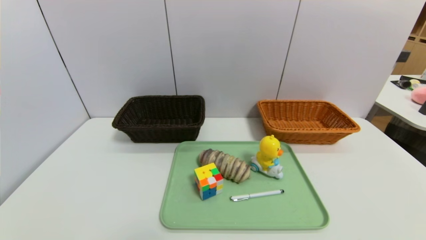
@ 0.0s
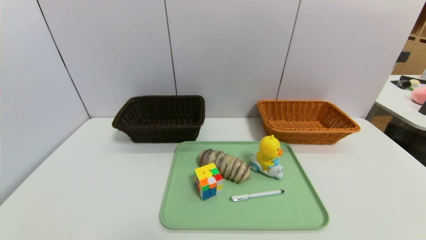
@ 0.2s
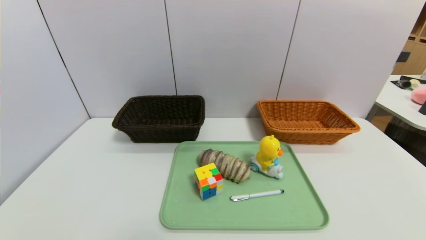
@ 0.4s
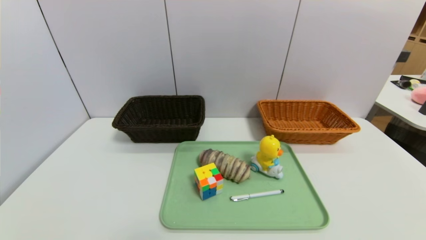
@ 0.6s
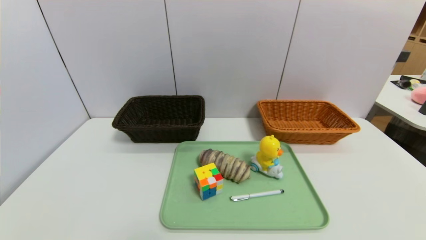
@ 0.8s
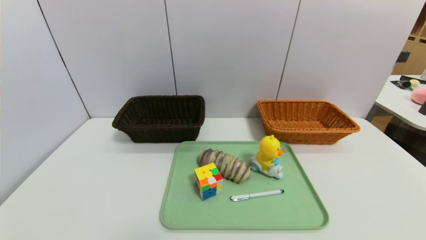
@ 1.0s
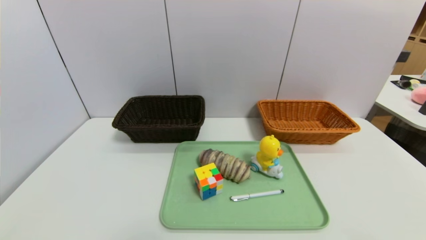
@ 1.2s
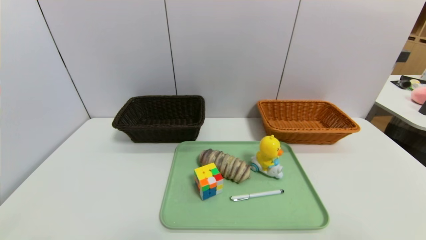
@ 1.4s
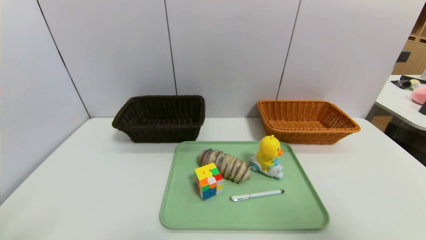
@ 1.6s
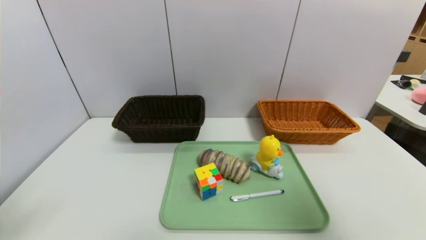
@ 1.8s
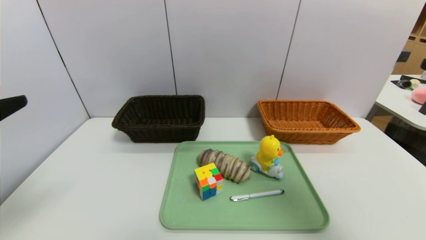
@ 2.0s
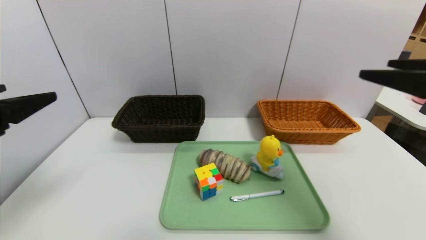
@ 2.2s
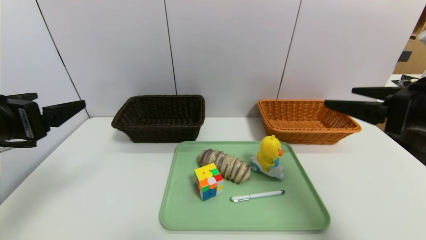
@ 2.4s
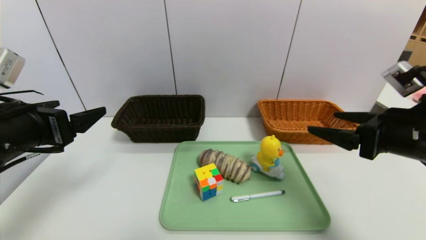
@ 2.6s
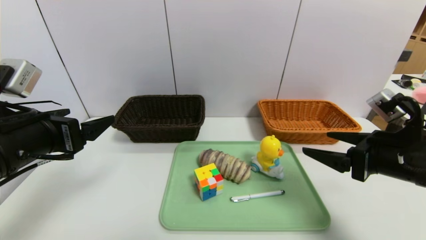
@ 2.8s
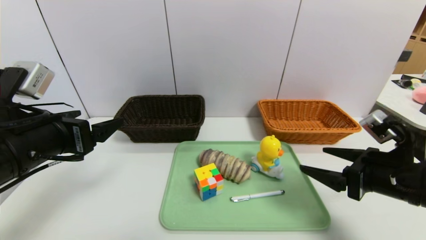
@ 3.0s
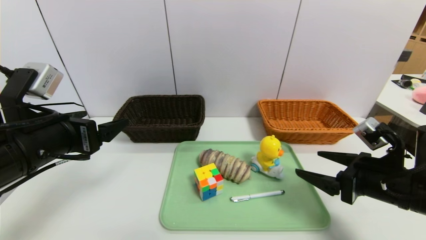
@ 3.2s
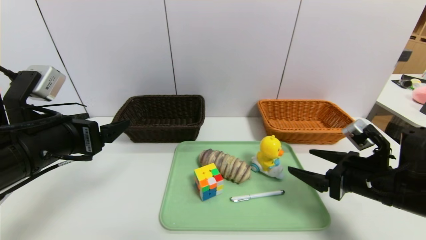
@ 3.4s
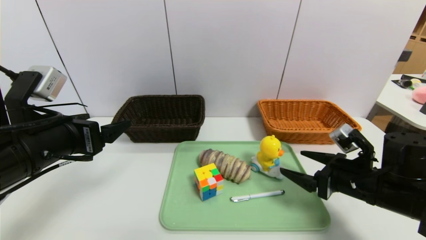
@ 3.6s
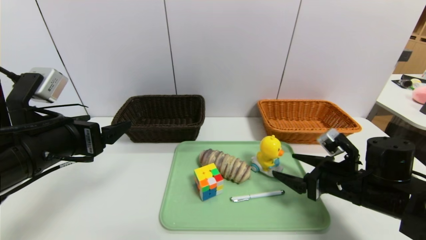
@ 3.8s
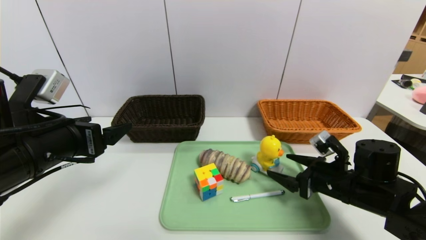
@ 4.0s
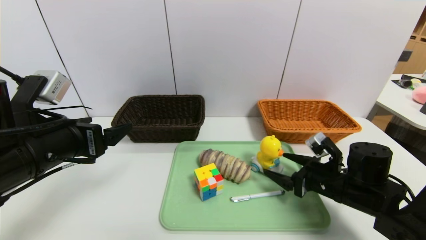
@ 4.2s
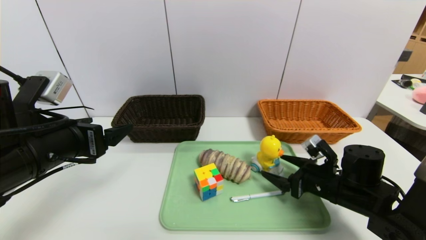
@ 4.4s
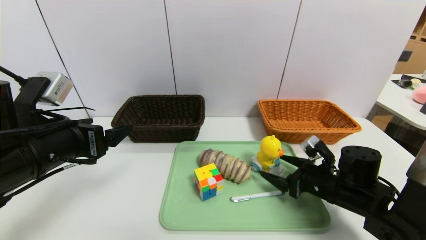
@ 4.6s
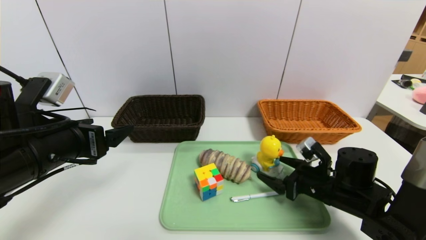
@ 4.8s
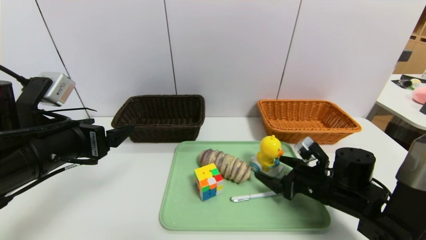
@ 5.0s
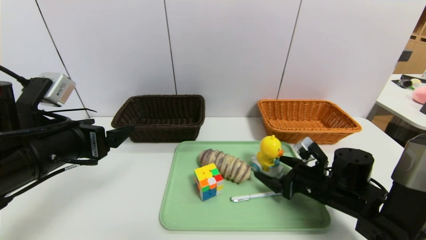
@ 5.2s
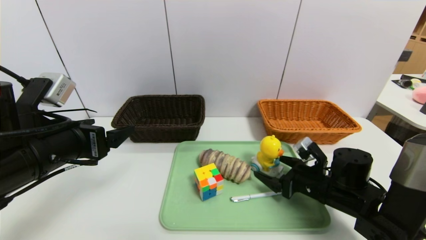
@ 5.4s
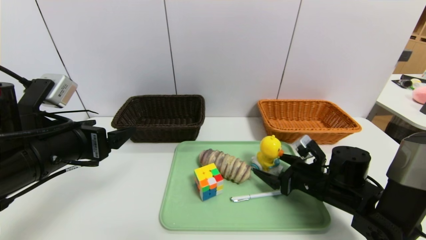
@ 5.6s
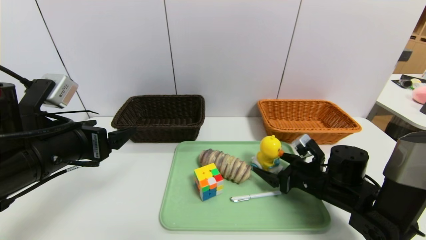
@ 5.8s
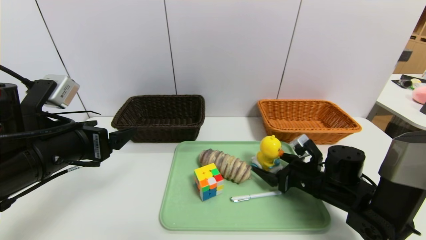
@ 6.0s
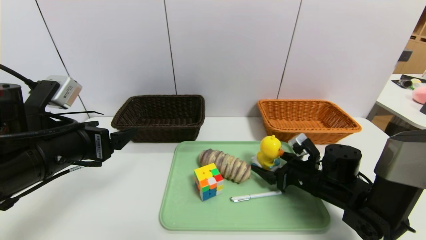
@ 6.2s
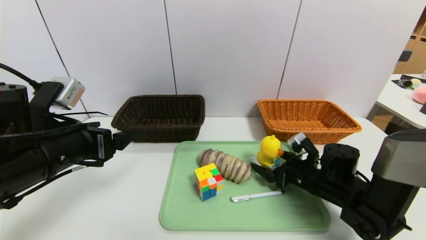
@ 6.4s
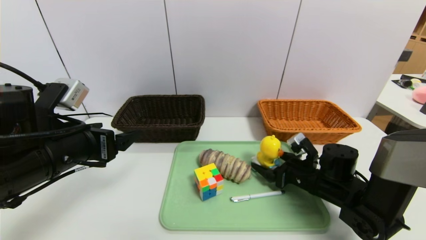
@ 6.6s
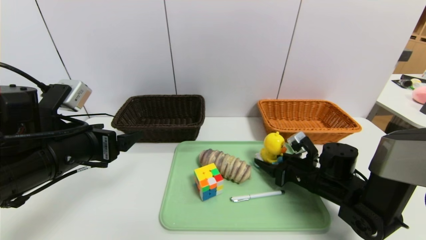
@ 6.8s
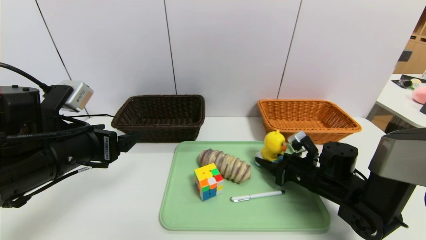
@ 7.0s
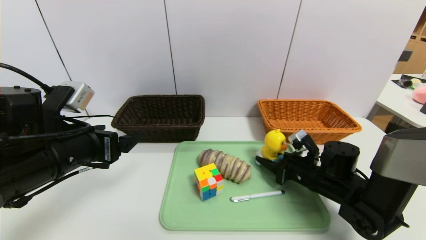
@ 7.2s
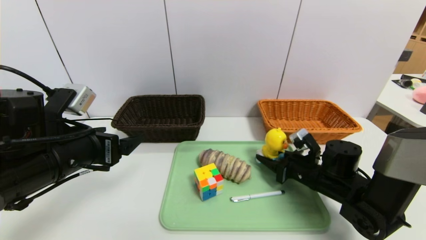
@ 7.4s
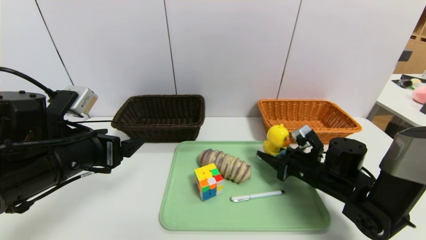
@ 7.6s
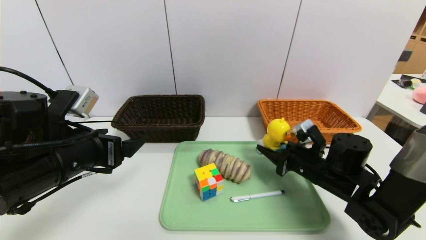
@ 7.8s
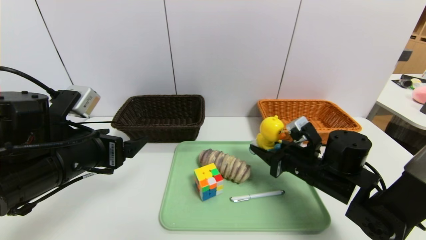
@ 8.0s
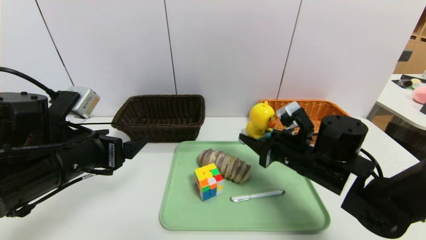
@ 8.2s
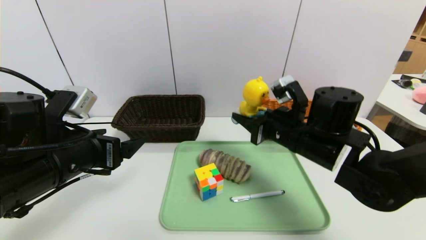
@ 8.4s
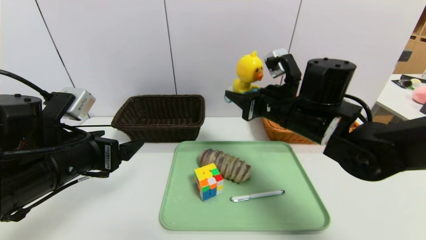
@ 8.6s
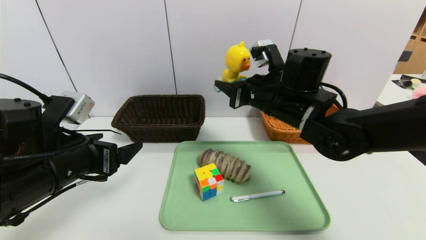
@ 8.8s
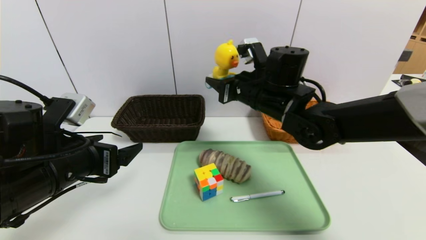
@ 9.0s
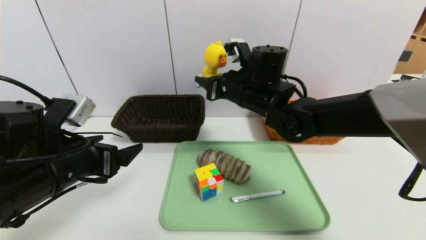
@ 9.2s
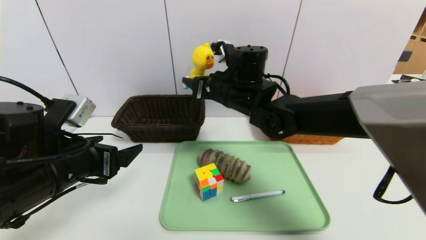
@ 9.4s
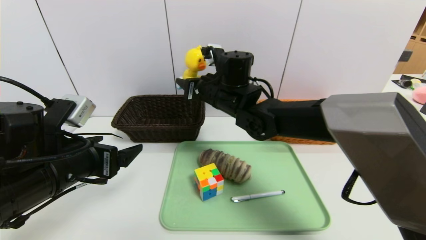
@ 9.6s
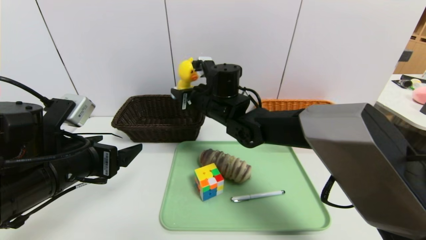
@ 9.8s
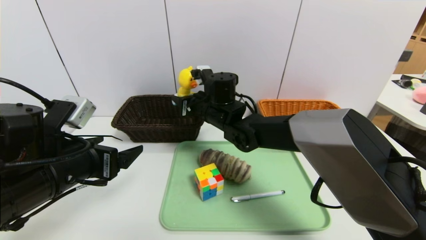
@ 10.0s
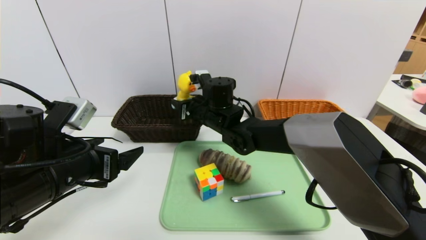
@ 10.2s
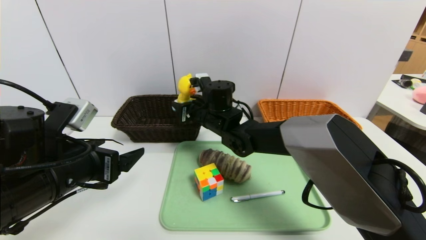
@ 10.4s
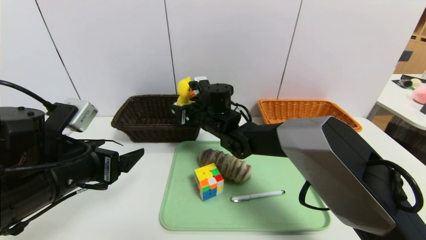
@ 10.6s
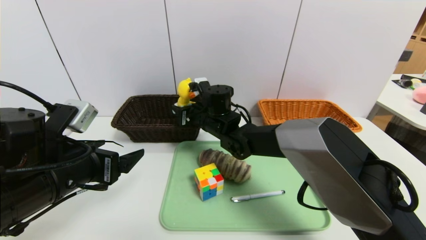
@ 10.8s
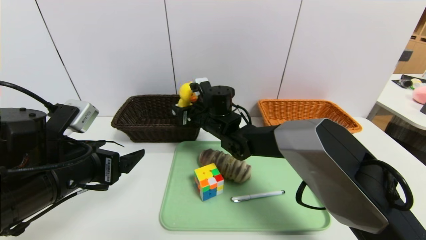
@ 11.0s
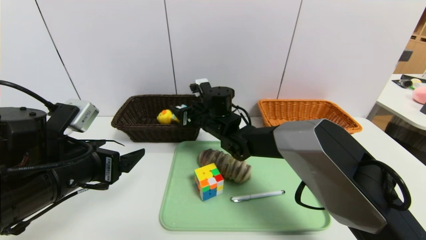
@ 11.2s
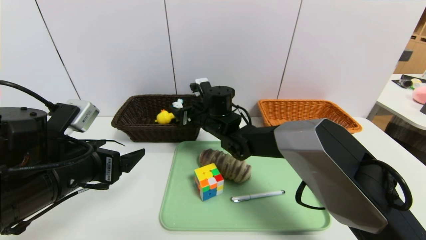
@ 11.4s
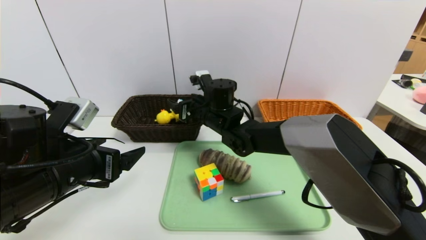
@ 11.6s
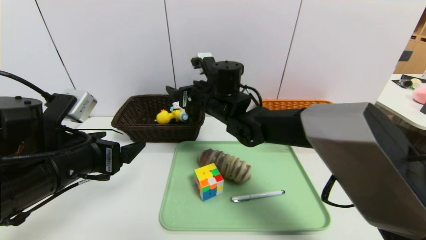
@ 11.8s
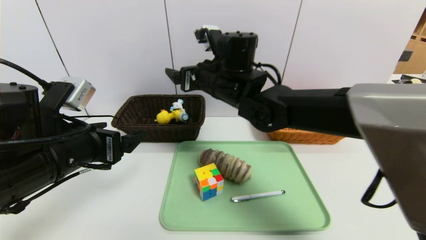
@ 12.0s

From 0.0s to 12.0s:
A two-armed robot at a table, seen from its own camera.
Task of the whole recording: place the food in the right basket with the right gripper, and place the non food items in the left basket with the left gripper.
From 0.0s to 1.6s: The right gripper travels upward by roughly 25 cm.
From 1.6s to 3.0s: The left gripper moves forward, some 15 cm, while the right gripper is displaced forward and downward by about 20 cm.
From 3.0s to 4.4s: The right gripper is displaced downward and forward by roughly 10 cm.
From 4.4s to 6.0s: There are only small adjustments of the grippers.
From 6.0s to 7.6s: The right gripper closes up.
From 7.6s to 9.0s: The right gripper shifts some 20 cm upward and to the left.
From 9.0s to 10.4s: The right gripper shifts roughly 15 cm to the left and downward.
From 10.4s to 12.0s: The right gripper is displaced upward by approximately 10 cm, and opens its fingers.

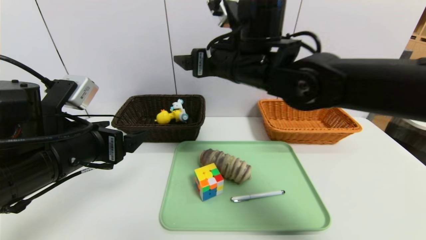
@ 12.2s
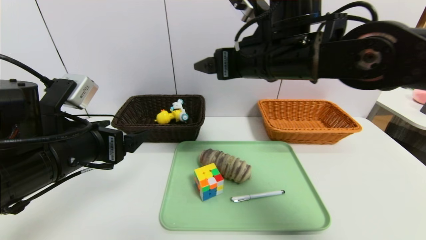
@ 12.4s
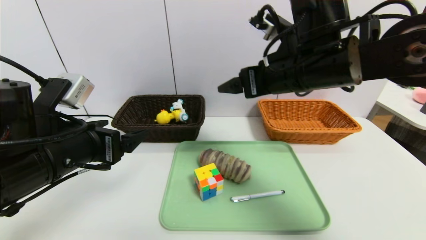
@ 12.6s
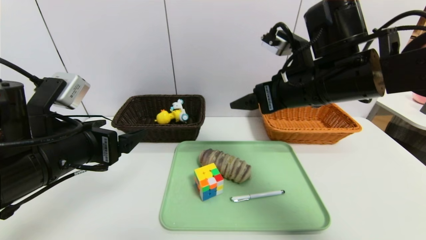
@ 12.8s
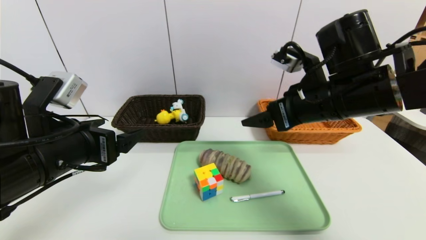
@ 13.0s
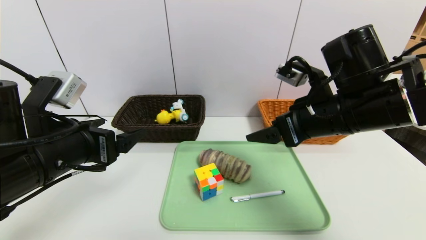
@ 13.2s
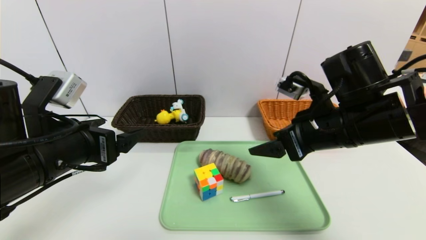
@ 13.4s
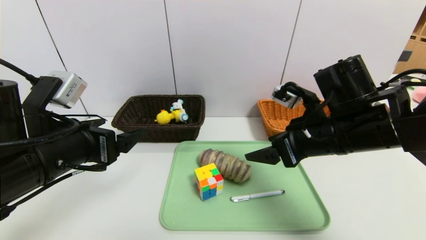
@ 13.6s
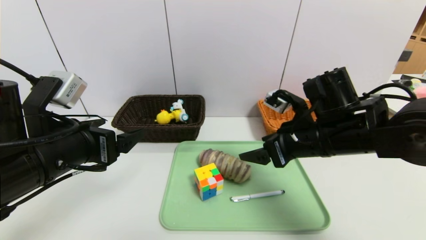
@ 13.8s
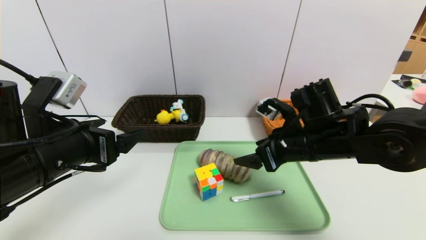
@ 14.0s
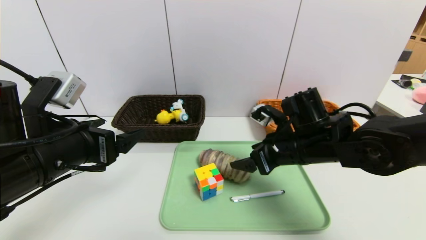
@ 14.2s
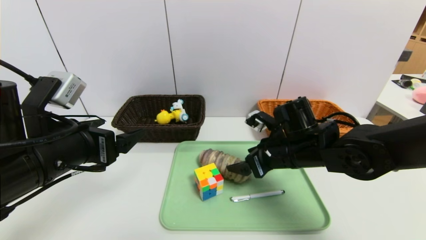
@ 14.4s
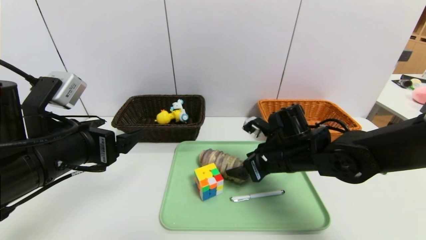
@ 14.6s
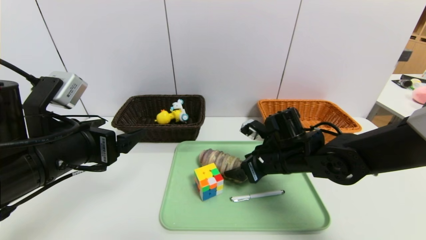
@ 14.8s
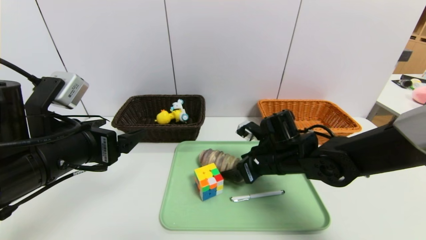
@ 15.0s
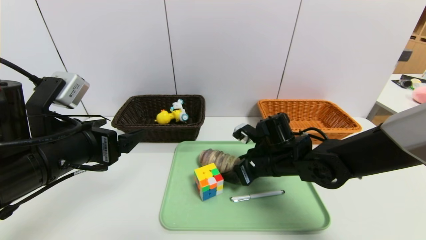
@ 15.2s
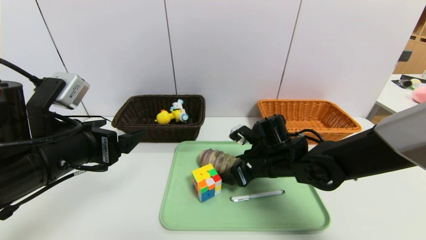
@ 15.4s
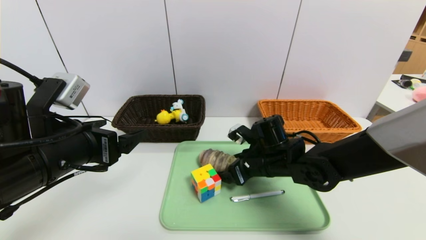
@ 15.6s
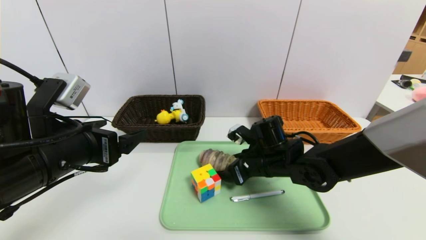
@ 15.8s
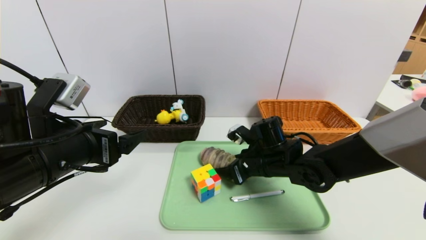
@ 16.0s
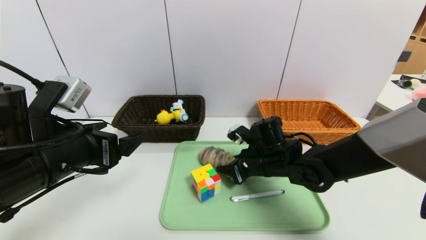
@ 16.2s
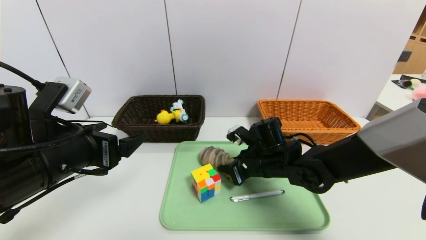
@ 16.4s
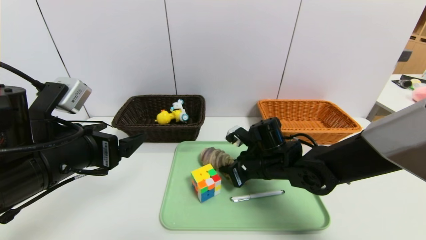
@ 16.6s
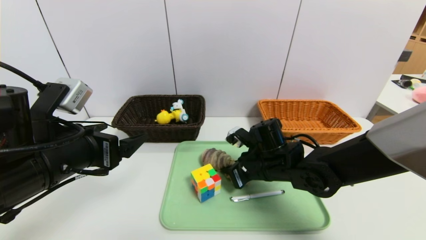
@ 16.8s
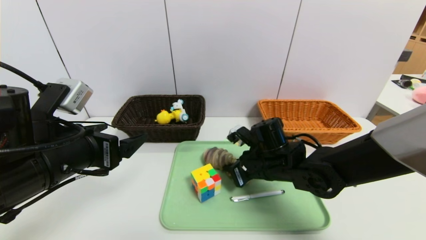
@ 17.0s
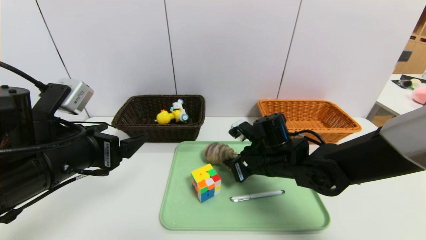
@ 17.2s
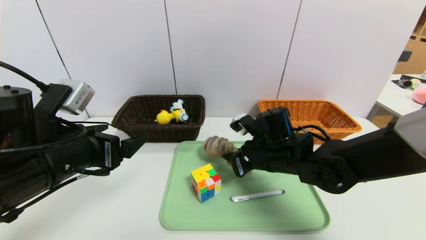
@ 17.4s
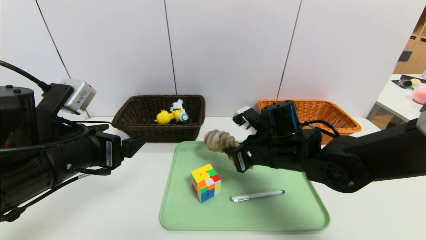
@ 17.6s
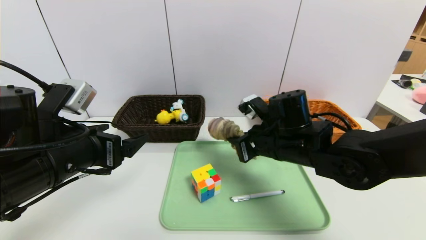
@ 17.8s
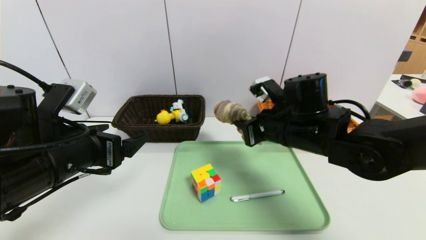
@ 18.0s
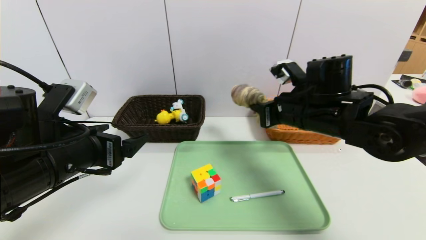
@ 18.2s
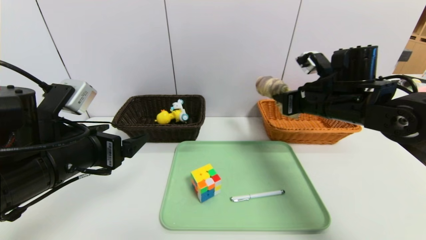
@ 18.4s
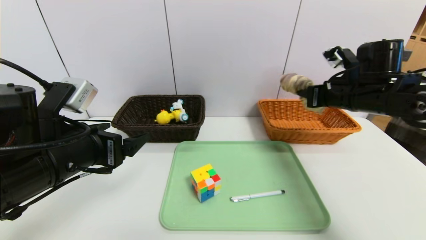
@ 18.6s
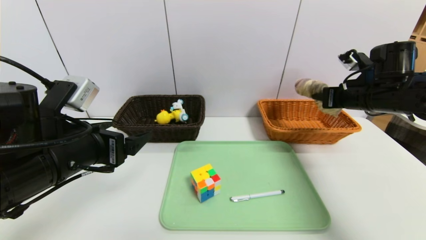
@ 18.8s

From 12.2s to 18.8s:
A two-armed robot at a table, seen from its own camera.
Task of the whole recording: place the food in the right basket with the right gripper, and place the non food items in the left basket with the left gripper.
From 12.2s to 13.8s: The right gripper travels to the right, downward and backward by some 15 cm.
From 13.8s to 15.4s: The right gripper heads downward and to the left, covering roughly 10 cm.
From 15.4s to 17.2s: The right gripper closes.
From 17.2s to 18.8s: The right gripper moves to the right and upward, approximately 25 cm.
